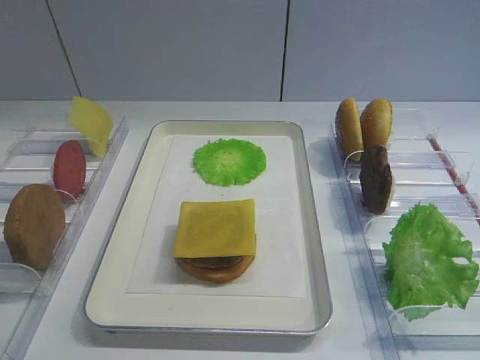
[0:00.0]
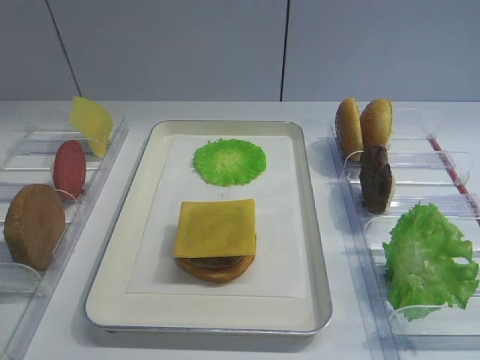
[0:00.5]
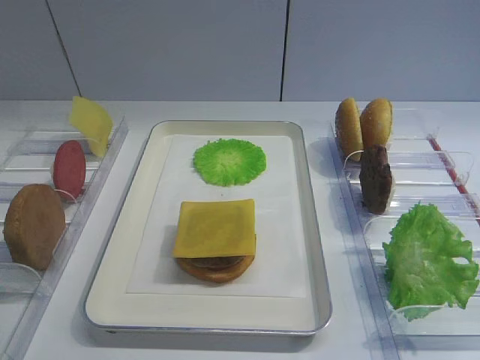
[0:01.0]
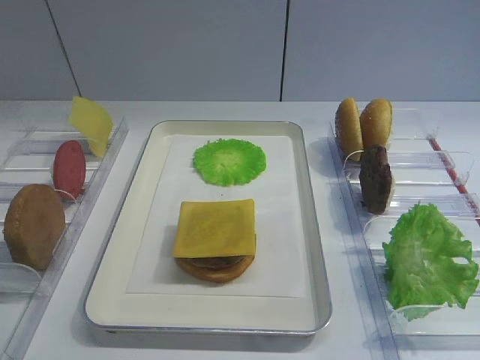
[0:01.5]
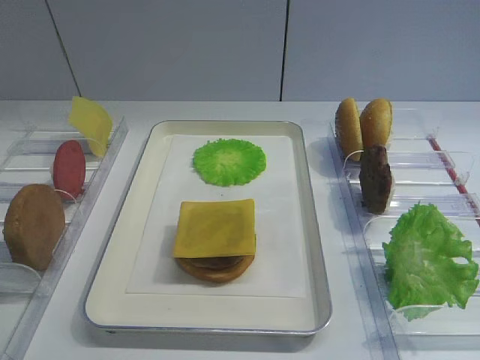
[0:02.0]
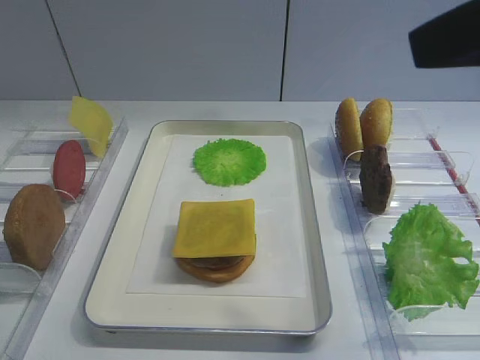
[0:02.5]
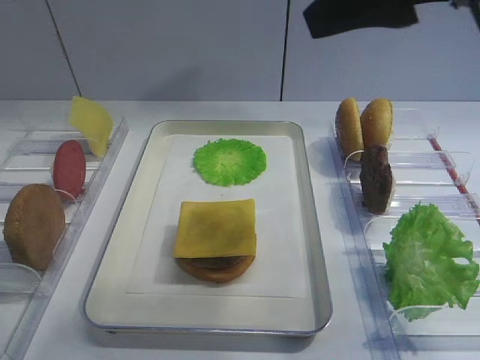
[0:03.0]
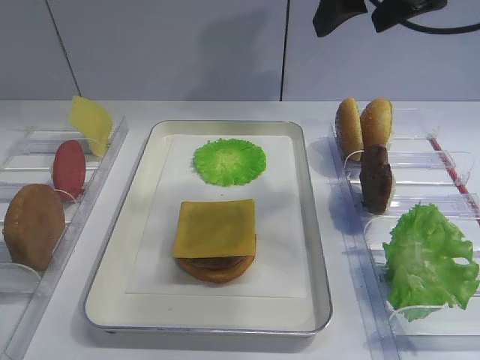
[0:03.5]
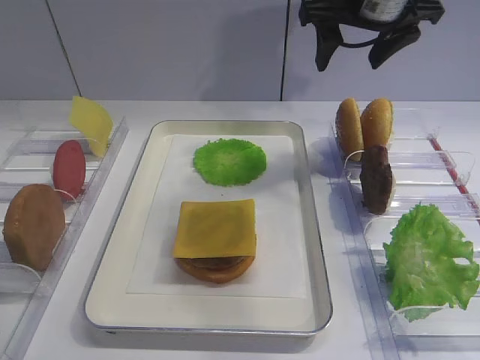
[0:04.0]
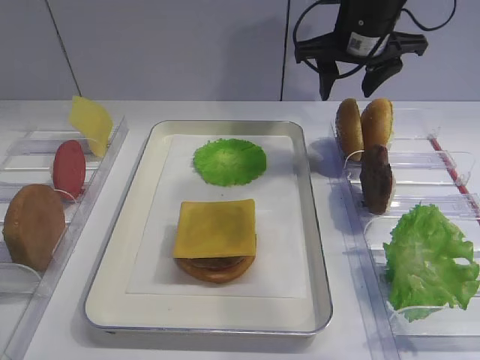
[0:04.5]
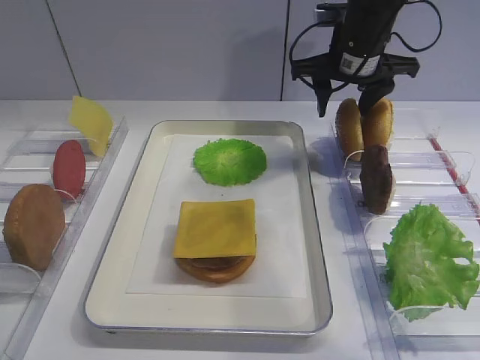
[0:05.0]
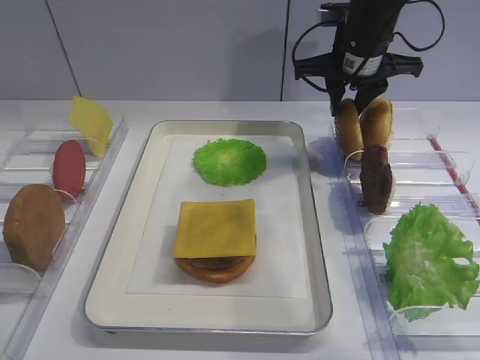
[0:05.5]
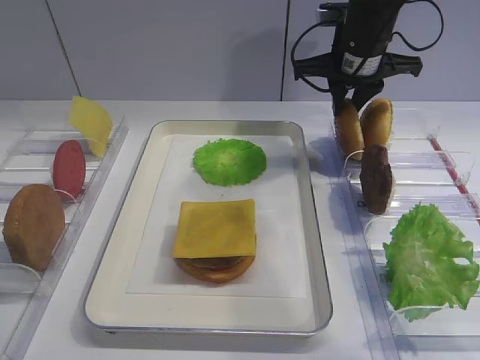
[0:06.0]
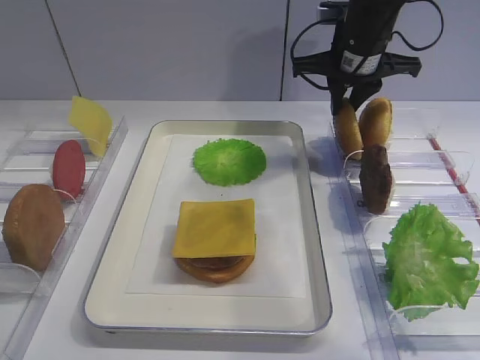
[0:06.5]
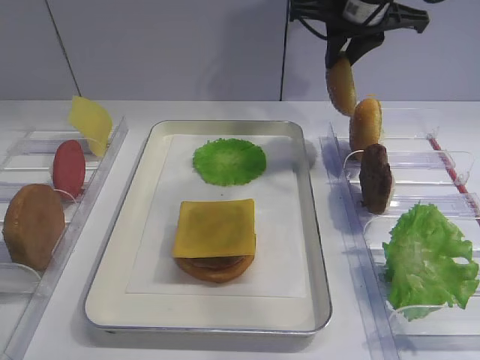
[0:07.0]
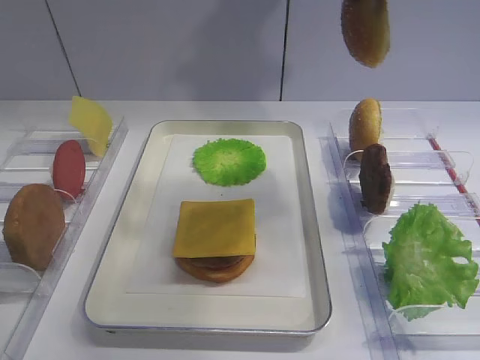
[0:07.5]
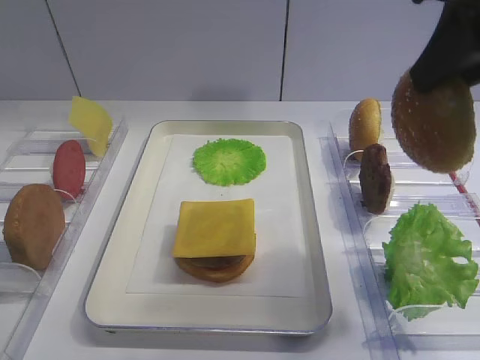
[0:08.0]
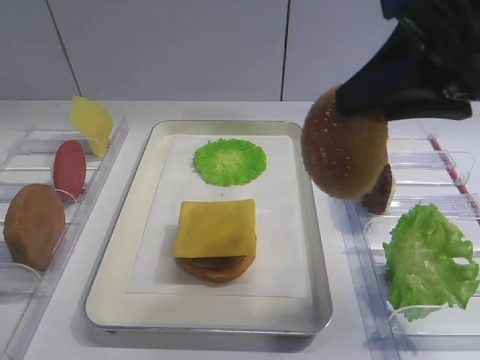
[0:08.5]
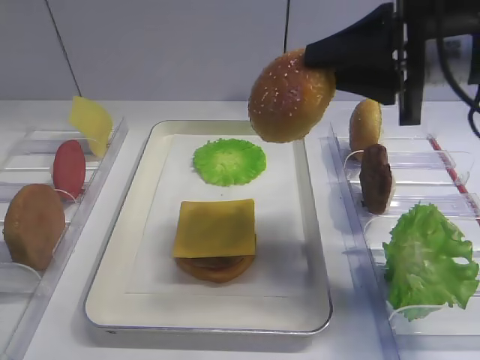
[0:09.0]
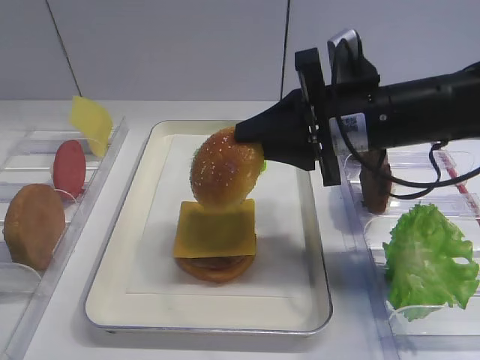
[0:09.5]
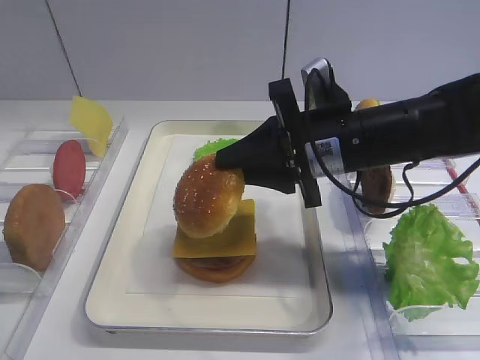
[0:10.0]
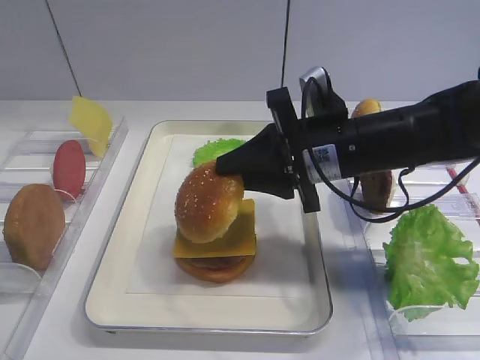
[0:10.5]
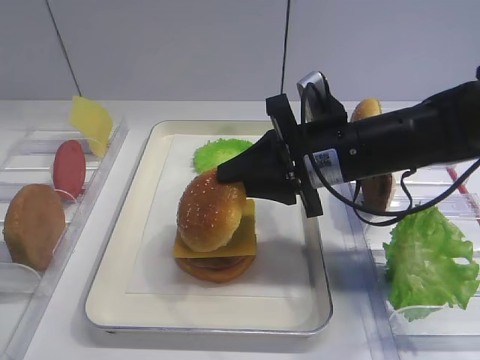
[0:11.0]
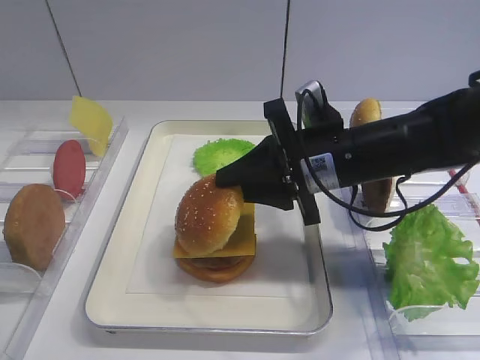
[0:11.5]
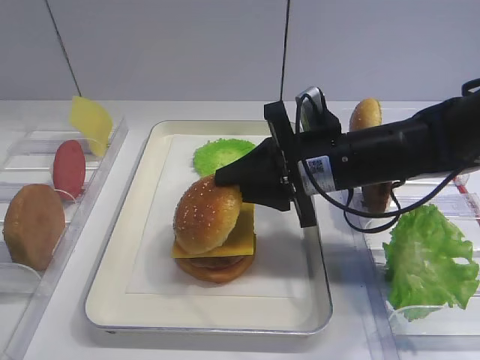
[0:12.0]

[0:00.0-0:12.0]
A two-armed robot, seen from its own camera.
Step, 0:00.0 to 0:07.0: Pick up the hamburger lid with the right gripper.
0:02.0 to 0:04.0: The right gripper goes approximately 35 cm forward.
0:04.0 to 0:06.0: The right gripper heads downward, covering some 10 cm, and closes.
0:06.0 to 0:08.0: The right gripper travels backward and upward by about 25 cm.
0:08.0 to 0:10.0: The right gripper moves downward, to the left and forward, approximately 20 cm.
0:10.0 to 0:12.0: The grippers move only a little.

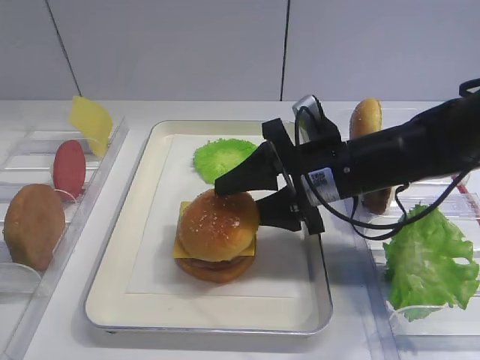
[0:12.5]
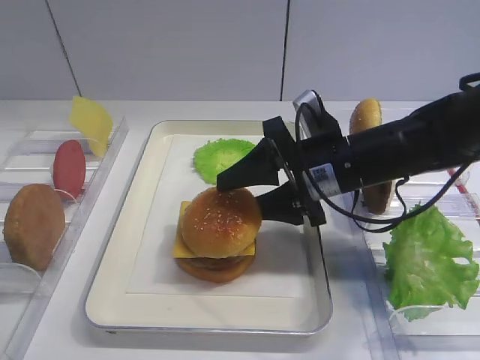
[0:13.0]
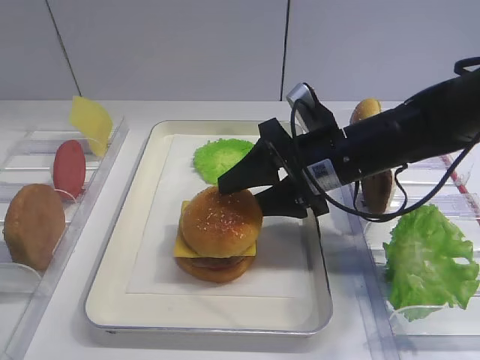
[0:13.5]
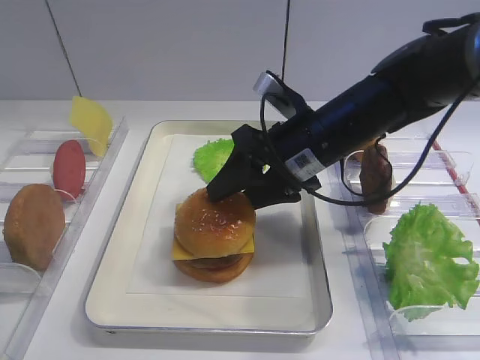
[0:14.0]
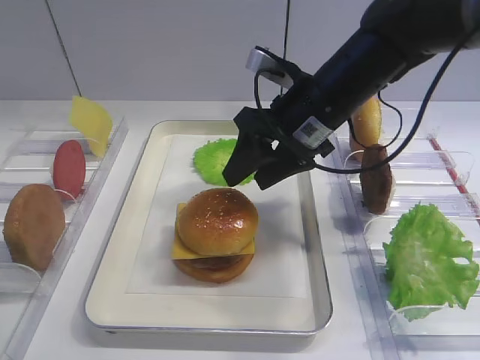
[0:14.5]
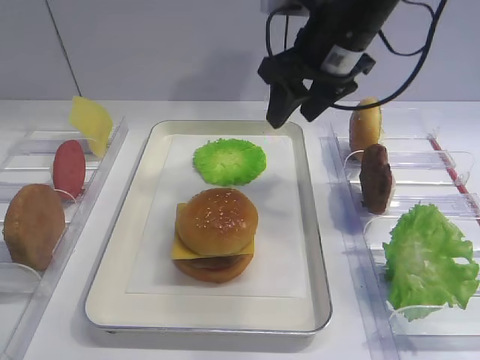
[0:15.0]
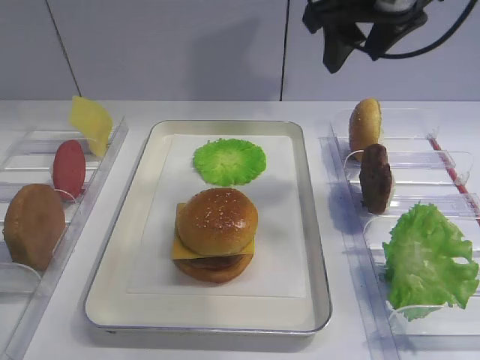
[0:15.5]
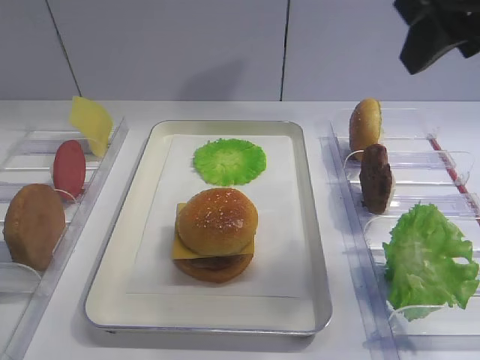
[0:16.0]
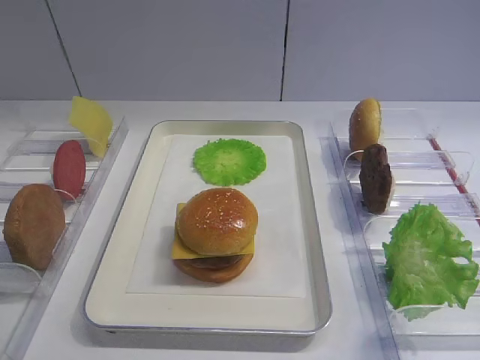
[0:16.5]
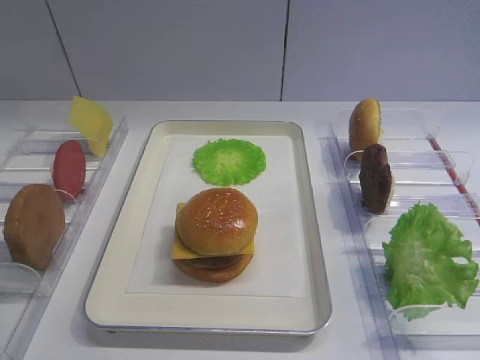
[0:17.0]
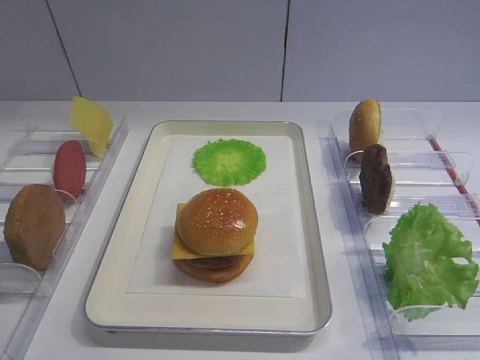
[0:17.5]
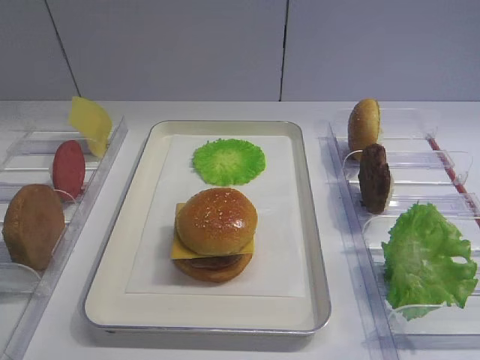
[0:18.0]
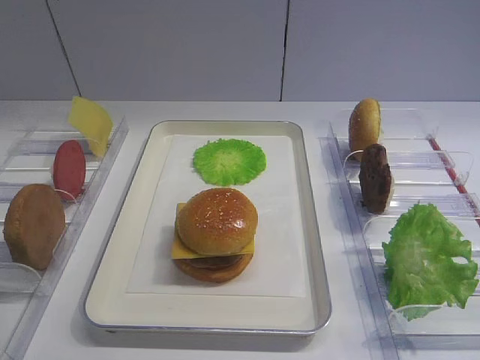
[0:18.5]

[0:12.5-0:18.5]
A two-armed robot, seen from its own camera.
Step, 0:12.5 to 0:14.5: Place the hamburger lid on the cheese slice with the right gripper.
0:12.5 to 0:14.5: The right gripper moves upward, about 5 cm.
0:14.5 to 0:16.5: The right gripper heads backward, upward and to the right, covering approximately 30 cm.
0:16.5 to 0:18.5: The right gripper shifts some 20 cm backward and downward.

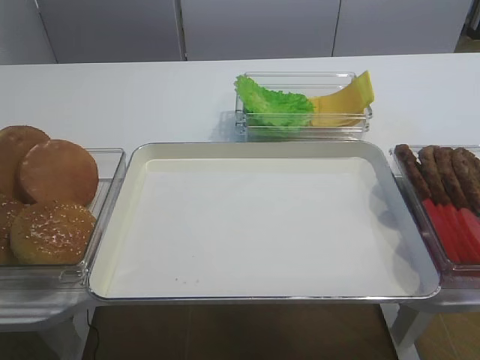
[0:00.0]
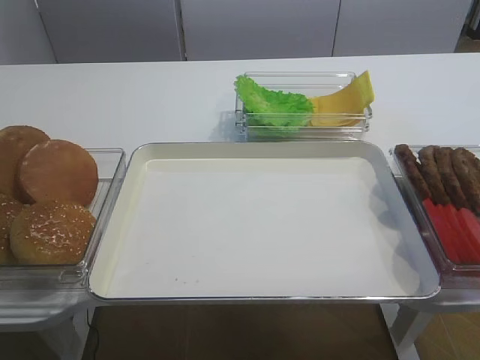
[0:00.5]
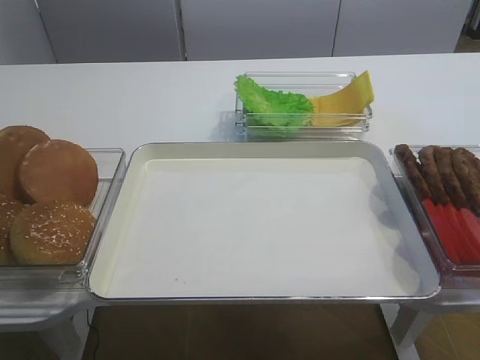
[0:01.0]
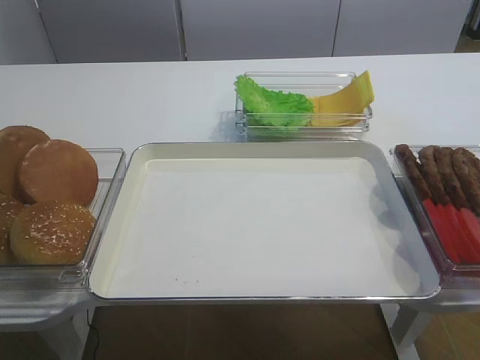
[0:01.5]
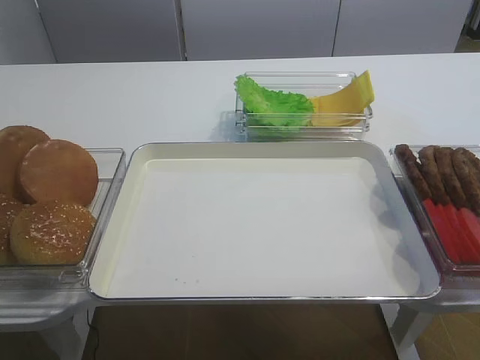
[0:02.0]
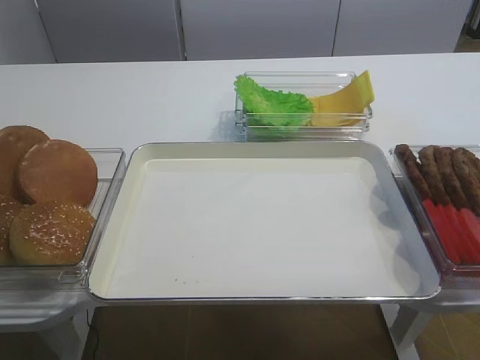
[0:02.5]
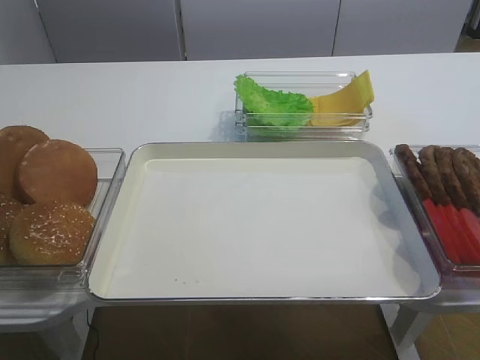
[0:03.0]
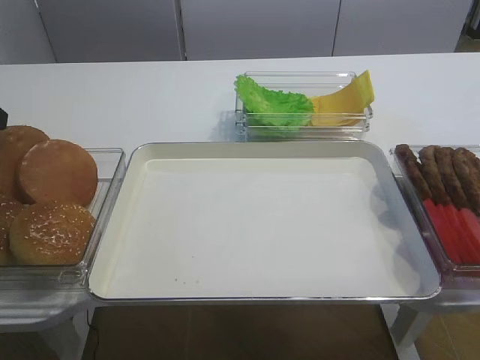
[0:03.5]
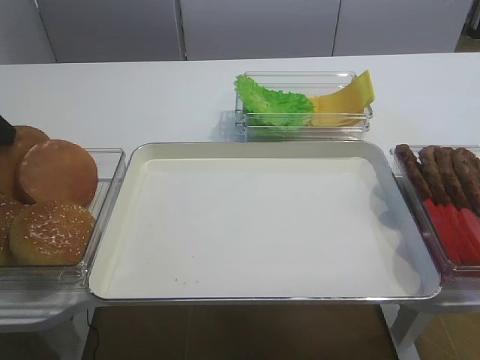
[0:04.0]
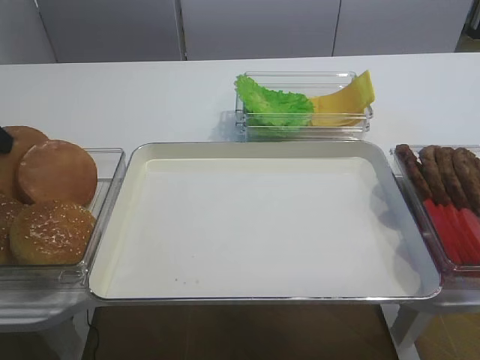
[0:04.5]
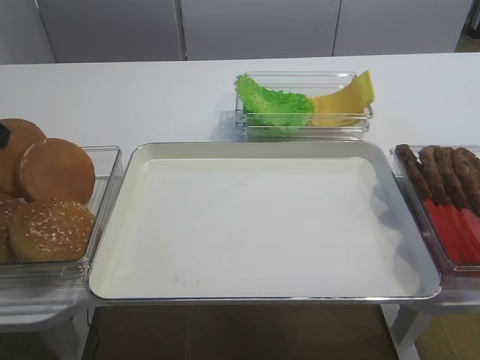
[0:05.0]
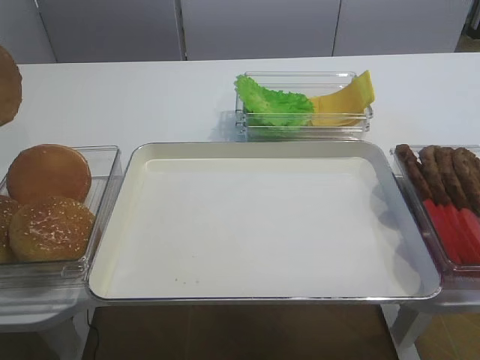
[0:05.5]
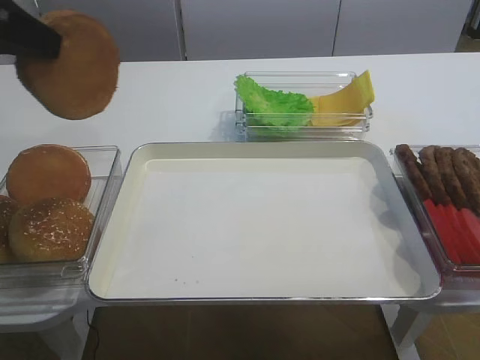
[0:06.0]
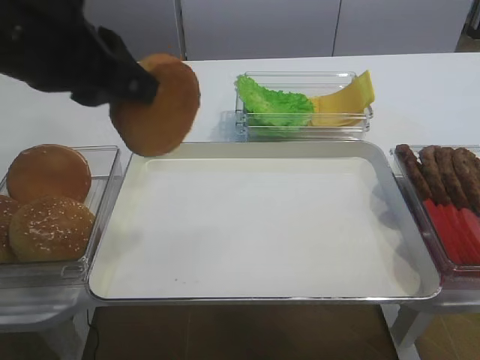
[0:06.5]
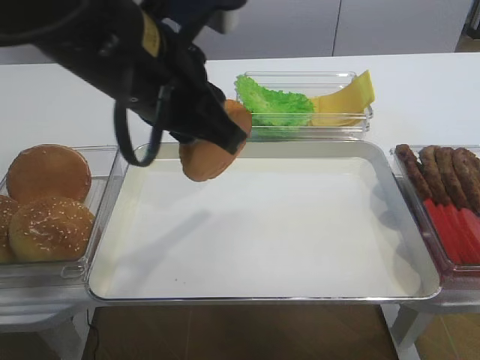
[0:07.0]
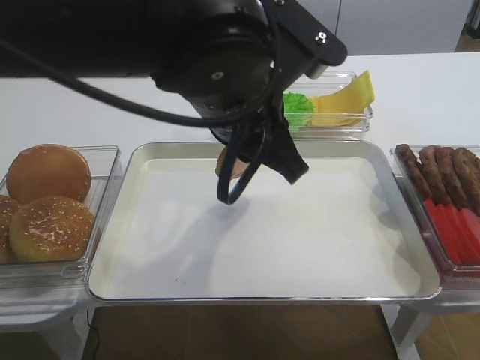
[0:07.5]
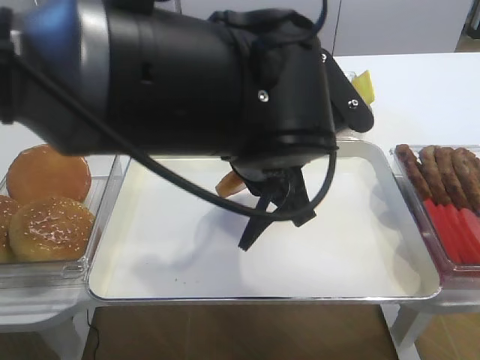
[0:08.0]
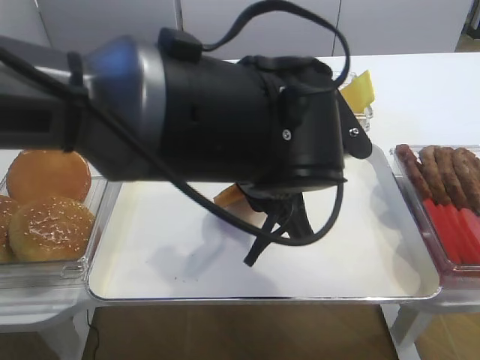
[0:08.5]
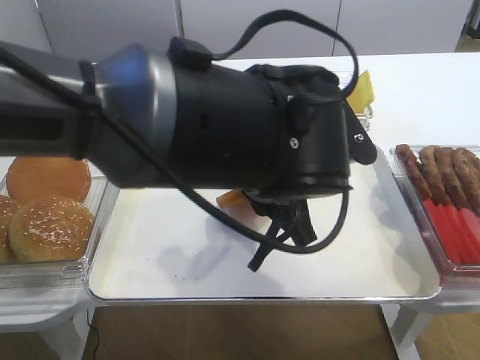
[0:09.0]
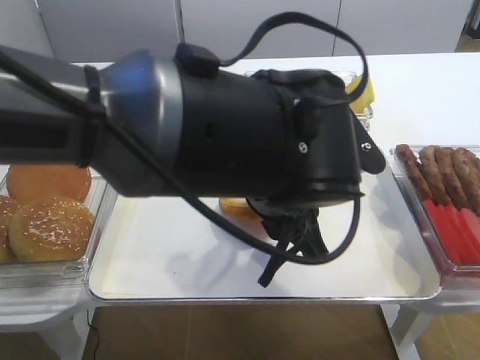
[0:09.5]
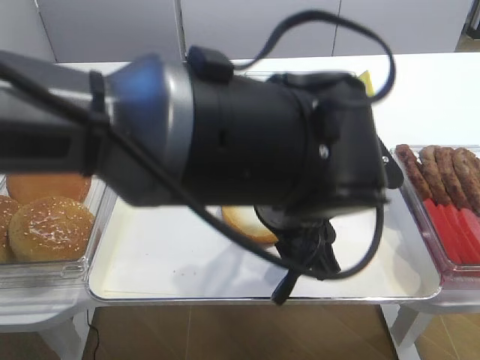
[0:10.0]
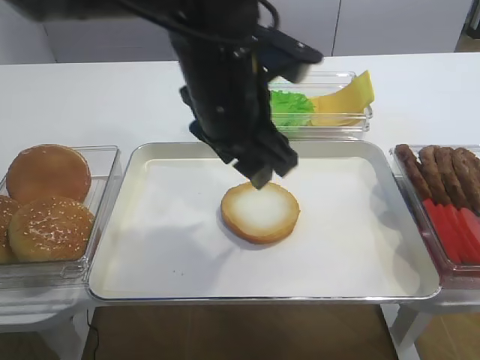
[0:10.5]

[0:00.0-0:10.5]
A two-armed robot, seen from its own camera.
Step, 0:00.0 to 0:05.0: Pick up the bread slice with the left gripper.
Step, 0:05.5 to 0:10.0: Place the bread slice on the tray with the left gripper.
0:04.0 to 0:06.5: The left gripper travels to the right, upward and backward by approximately 20 cm, and closes its fingers.
0:06.5 to 0:08.5: The left gripper shifts about 20 cm to the right and downward.
0:08.5 to 0:10.5: The left gripper moves some 5 cm, and opens its fingers.
